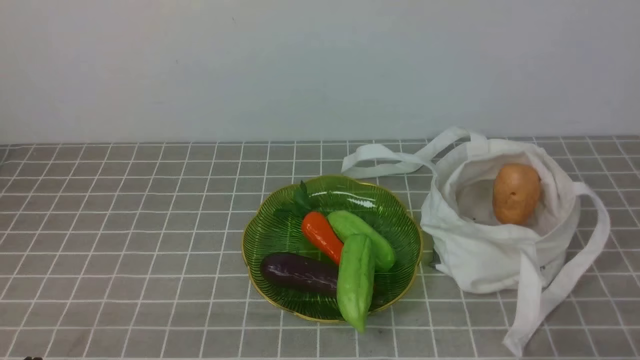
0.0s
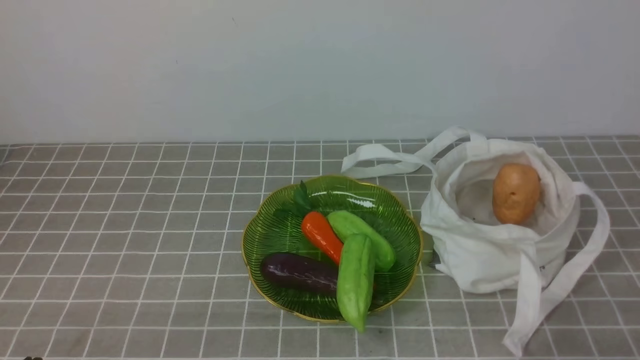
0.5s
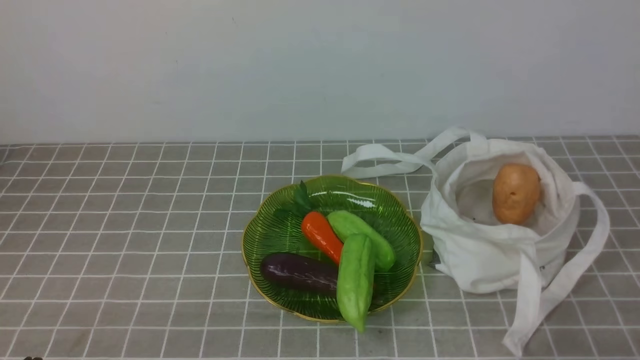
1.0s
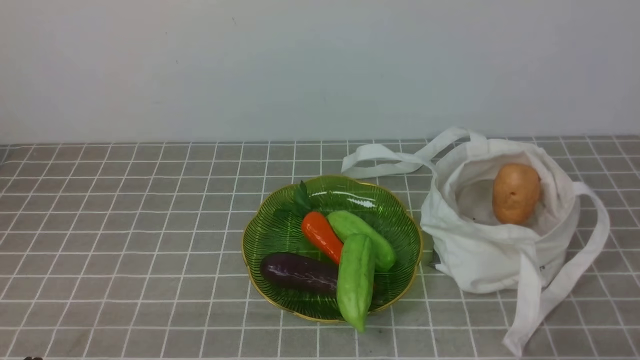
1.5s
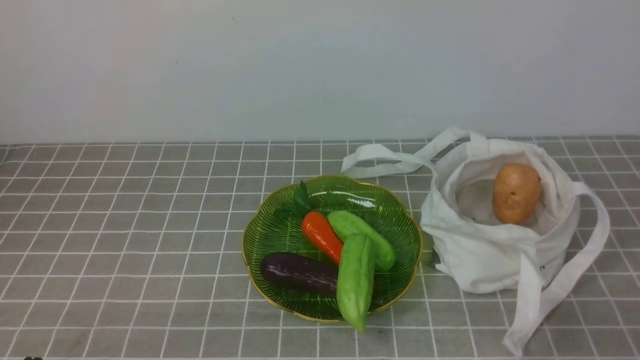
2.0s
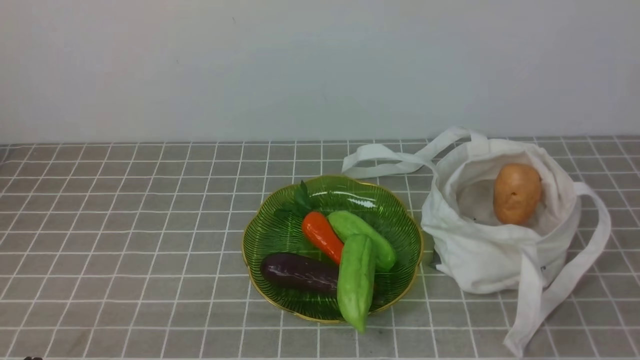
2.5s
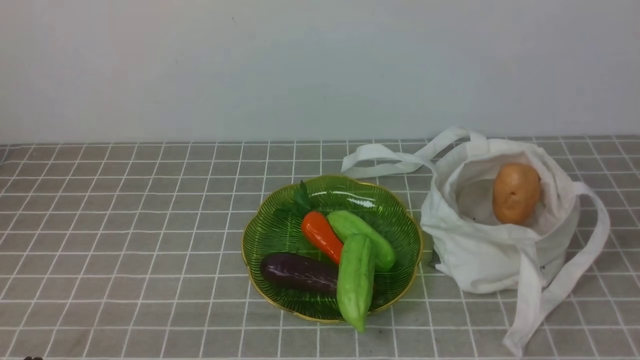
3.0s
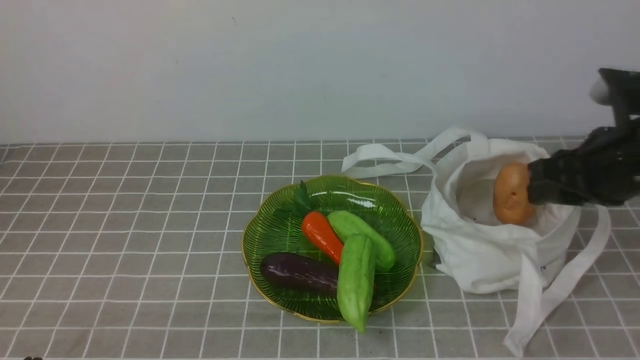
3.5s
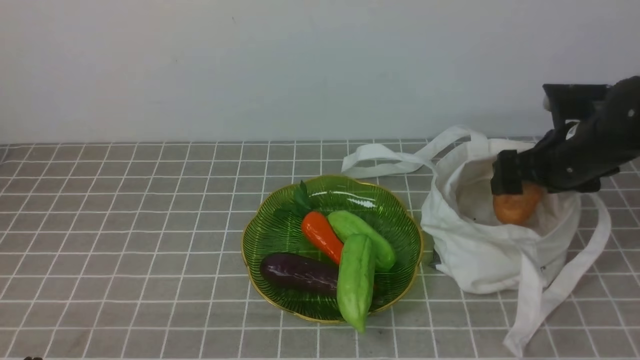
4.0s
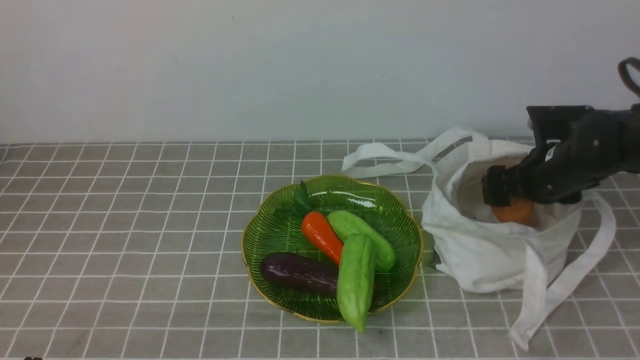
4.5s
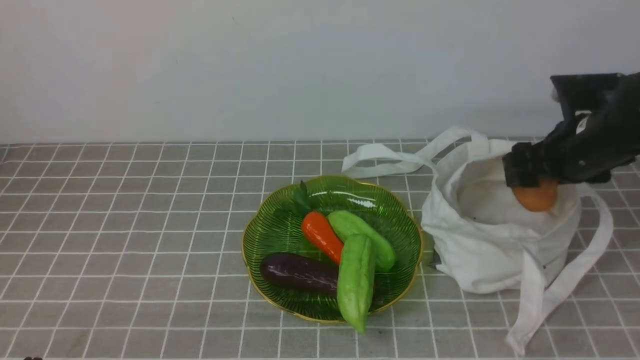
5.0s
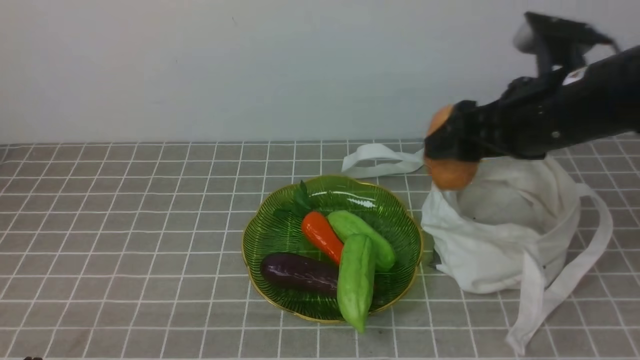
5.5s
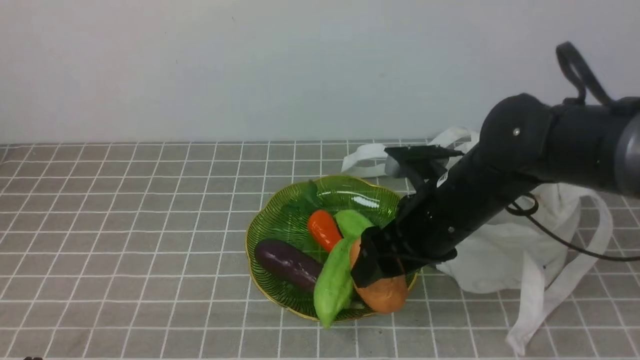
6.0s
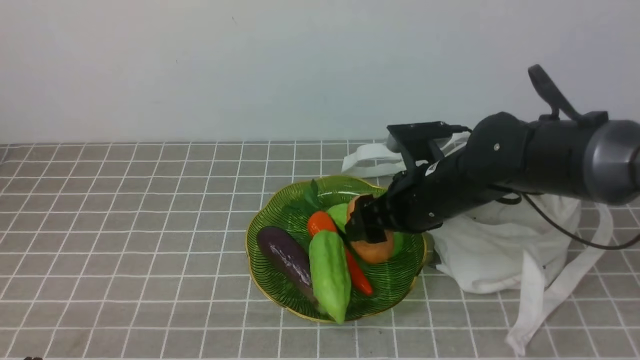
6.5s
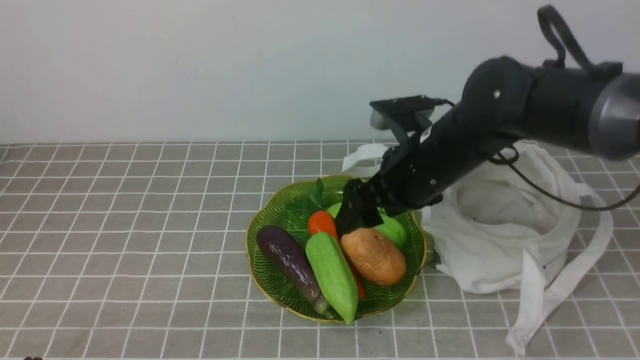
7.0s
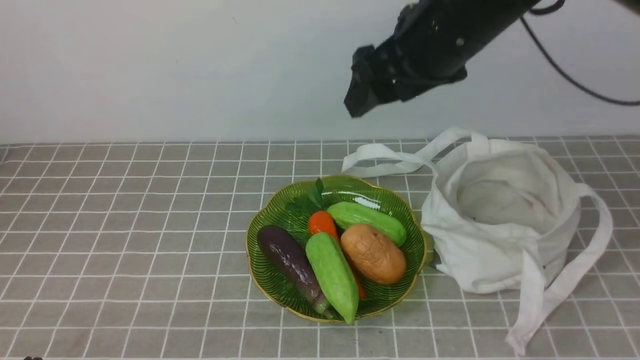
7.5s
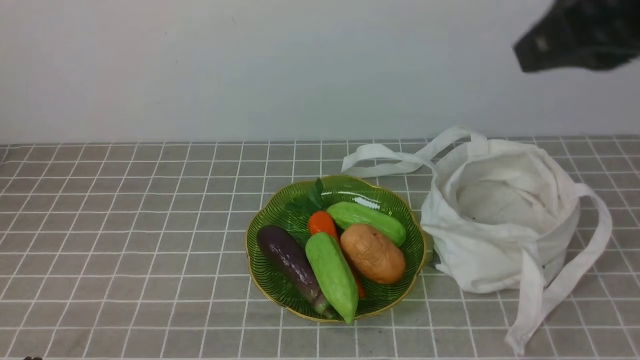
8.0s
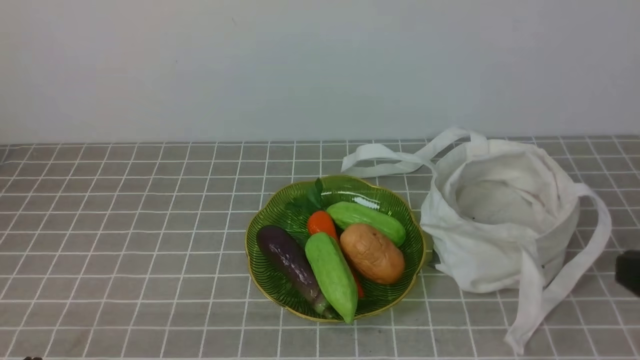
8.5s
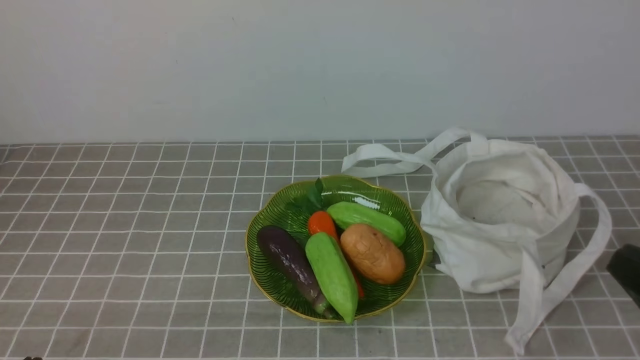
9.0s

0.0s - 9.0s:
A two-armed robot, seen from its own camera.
Task of the whole recording: take vegetables from bag on grey coffee tablecloth place on plate.
Step, 0.0s - 4.5s: Grasp the potato with right gripper.
Step, 5.0s - 7.0s: Place the potato on the plate with right gripper.
2.0s - 4.5s: The right gripper travels forward by some 35 cm, and opens its fingers.
4.5s - 7.0s: The right gripper moves to the left, approximately 15 cm.
7.0s - 9.0s: The right gripper heads backward and to the right, covering about 30 cm, and closes.

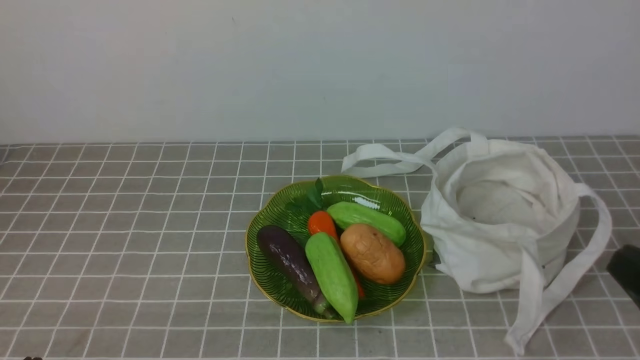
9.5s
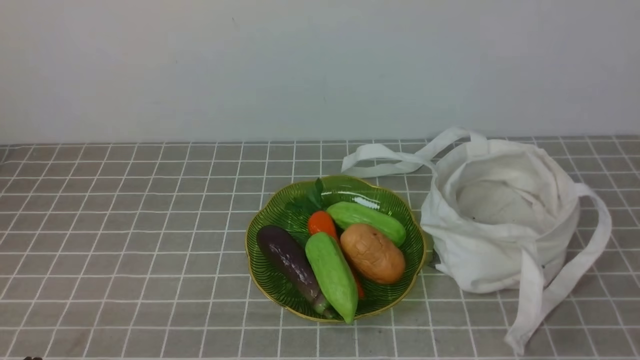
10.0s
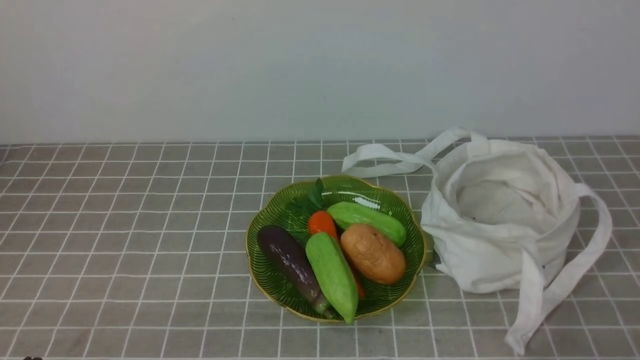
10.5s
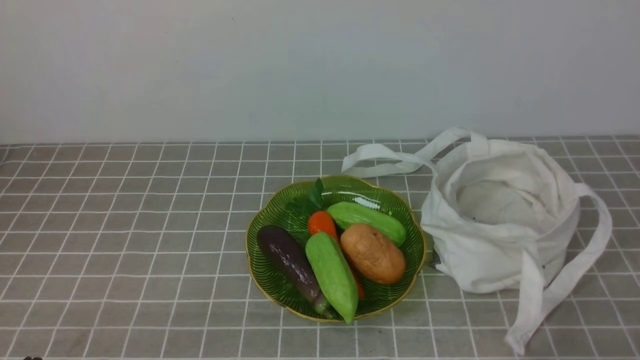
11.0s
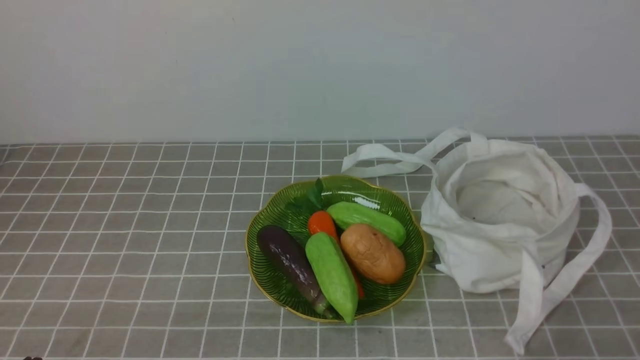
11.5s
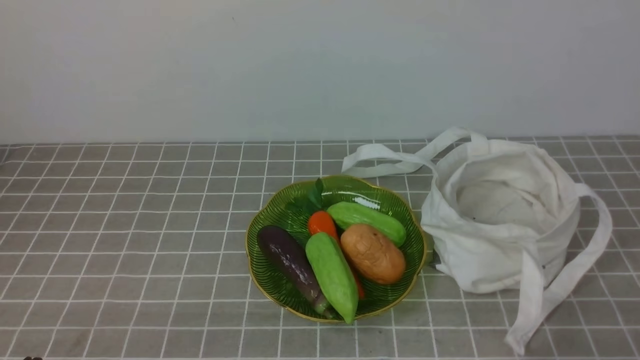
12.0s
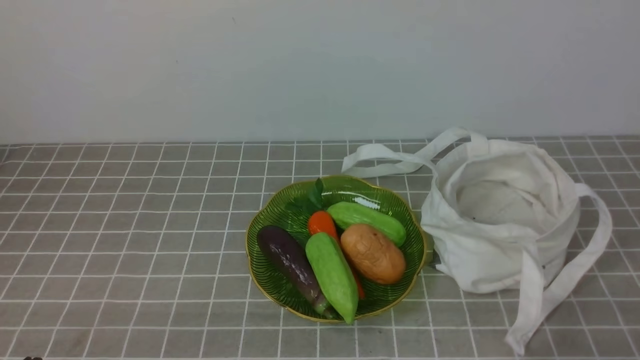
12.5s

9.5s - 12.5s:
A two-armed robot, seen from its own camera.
Task of the whole recording: take vegetables from bag on grey coffee tablecloth place on plate.
11.0s - 12.5s: Both grippers stay put.

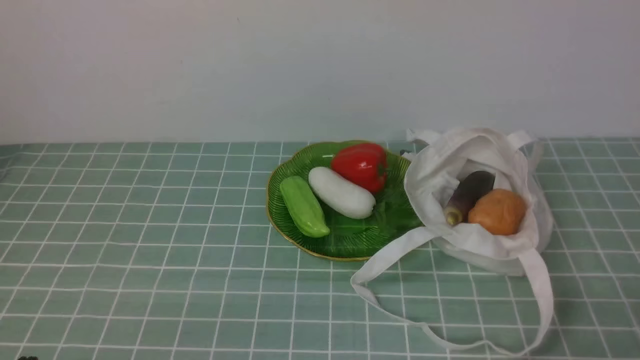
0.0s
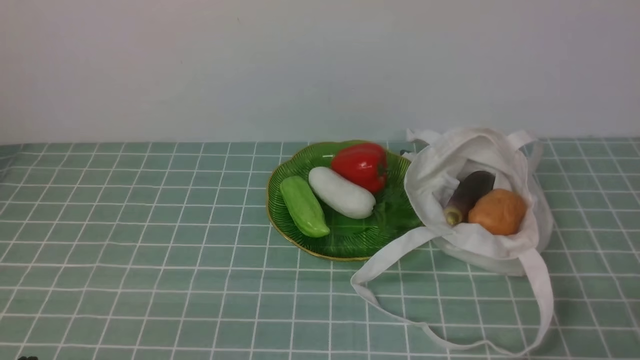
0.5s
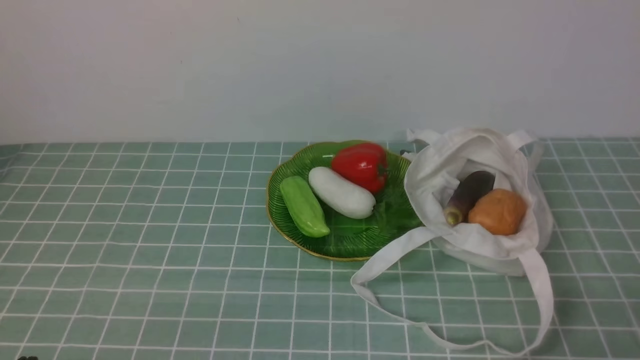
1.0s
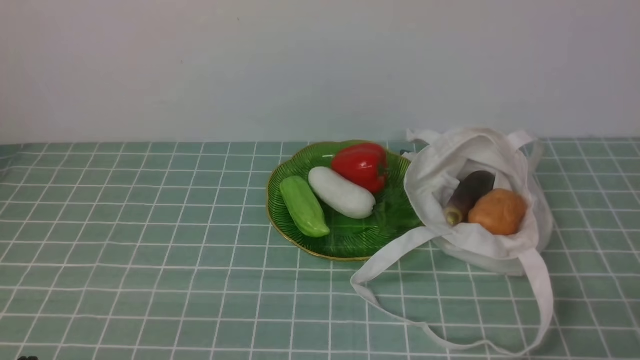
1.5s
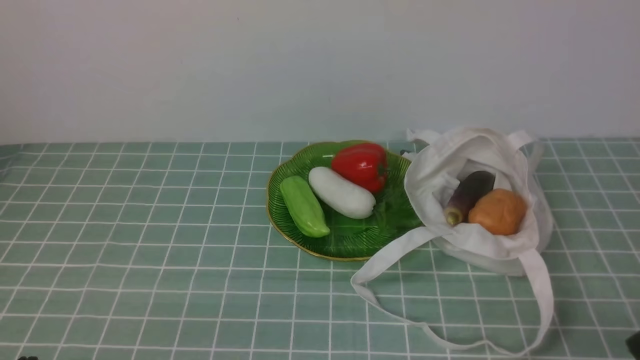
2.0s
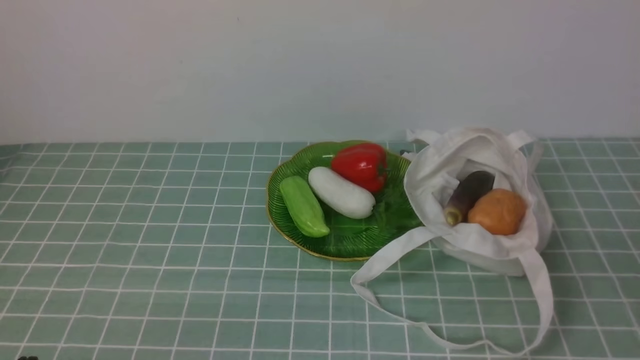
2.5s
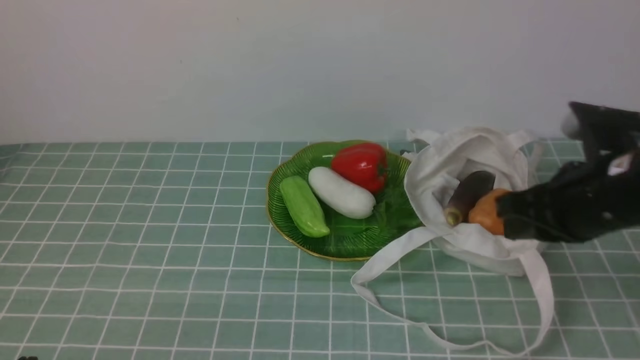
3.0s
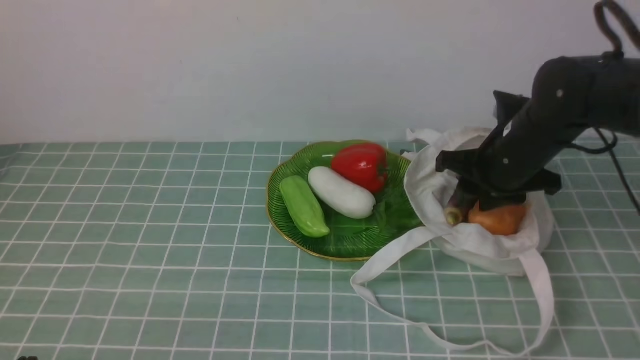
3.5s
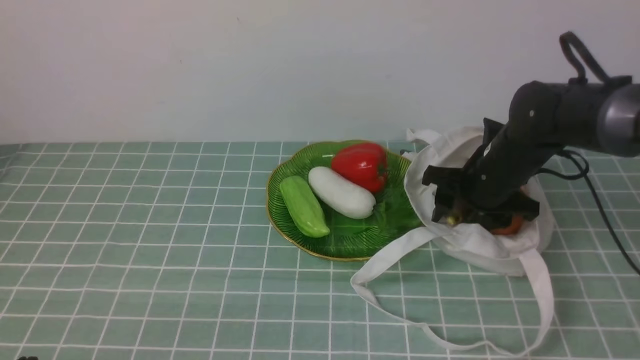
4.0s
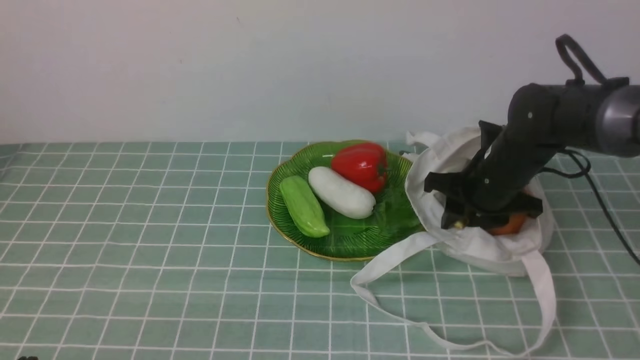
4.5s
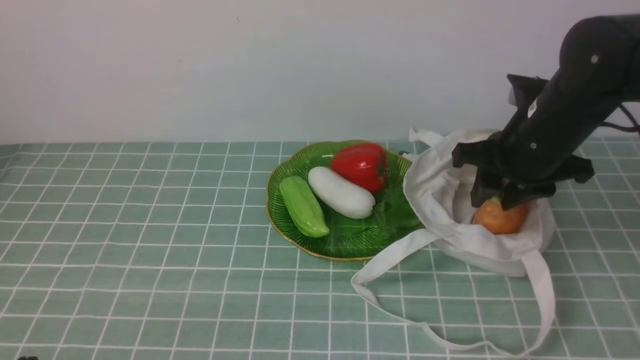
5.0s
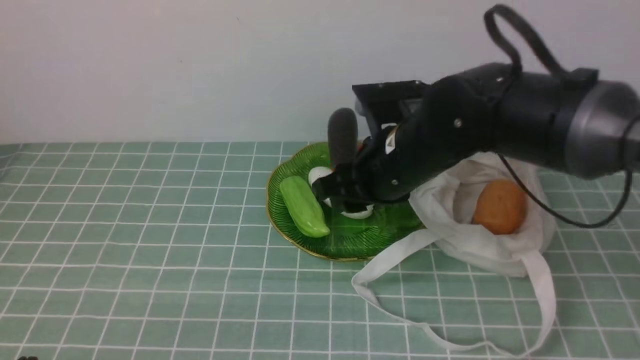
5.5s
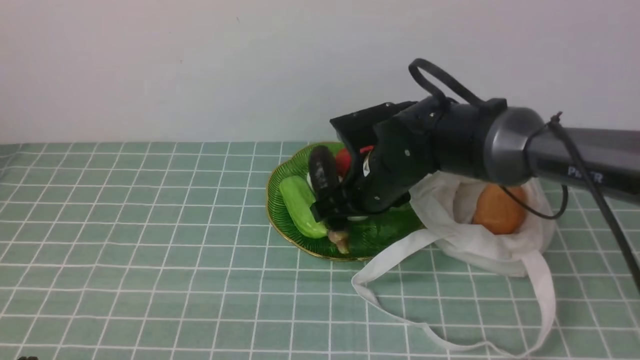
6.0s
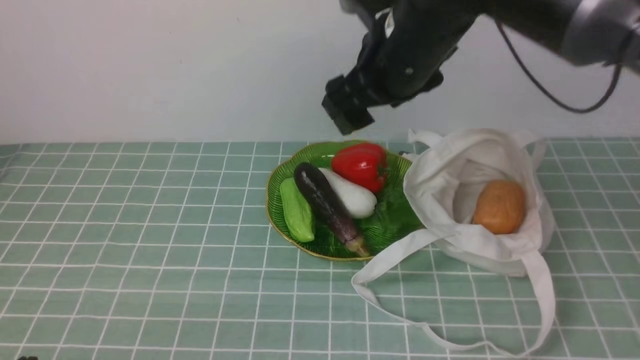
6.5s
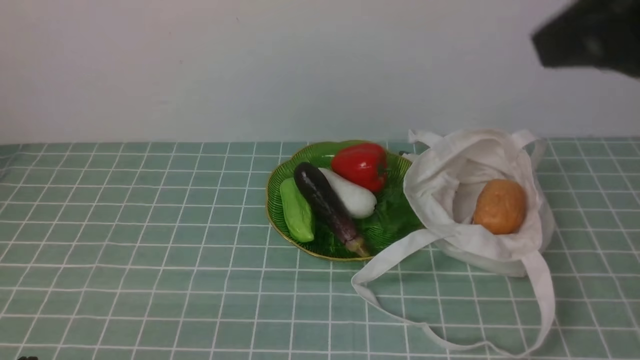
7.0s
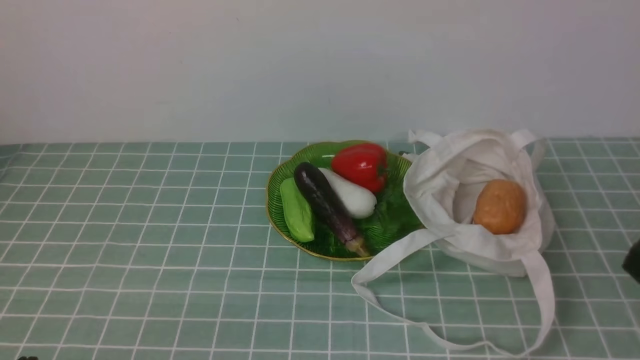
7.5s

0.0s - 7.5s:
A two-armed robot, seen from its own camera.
Task of the whole recording: take vegetables from cloth bag on blue coffee tablecloth place on plate.
Step, 0.0s - 4.0s: Grasp the eggplant with right gripper.
Step, 4.5s - 6.0s: Place the eggplant on the plate with right gripper.
2.0s - 4.0s: The right gripper travels forward by about 35 cm, and opens up.
4.0s - 5.5s: The right gripper is displaced to the left, upward and backward by about 15 cm.
5.5s - 7.5s: The right gripper travels backward and to the right by about 30 cm, and closes its fingers.
